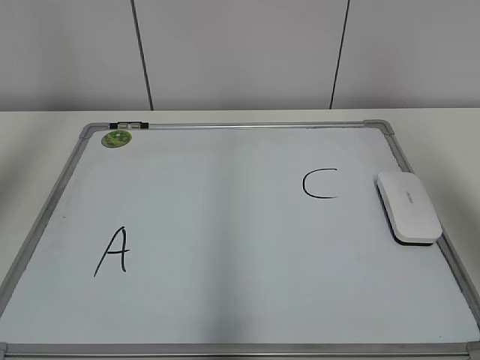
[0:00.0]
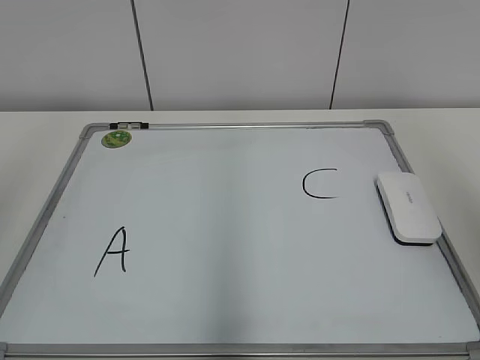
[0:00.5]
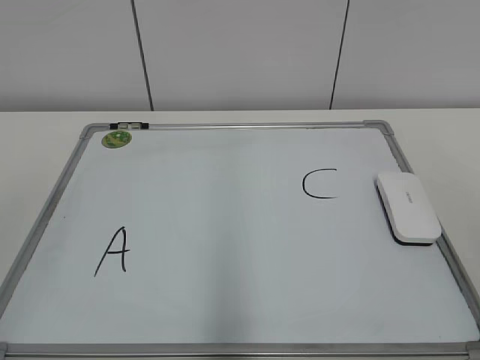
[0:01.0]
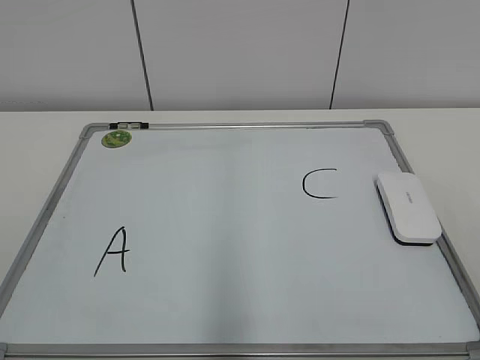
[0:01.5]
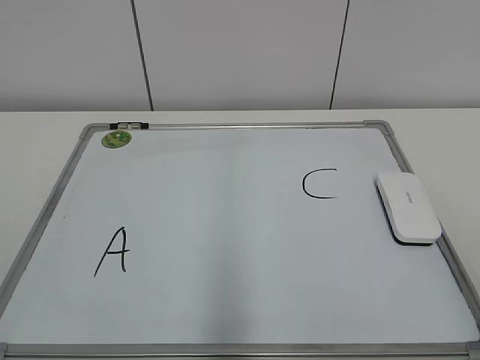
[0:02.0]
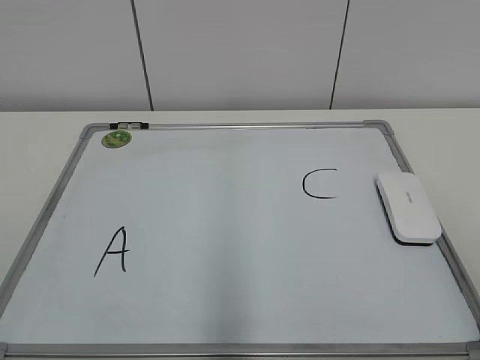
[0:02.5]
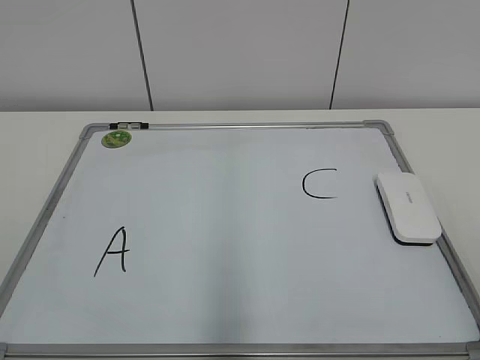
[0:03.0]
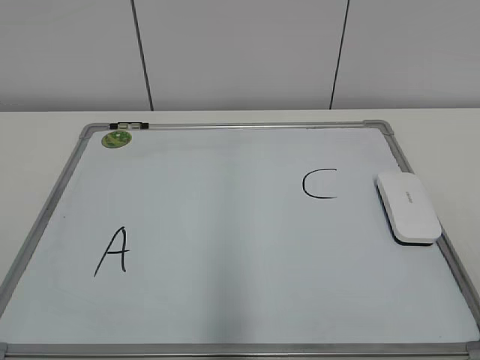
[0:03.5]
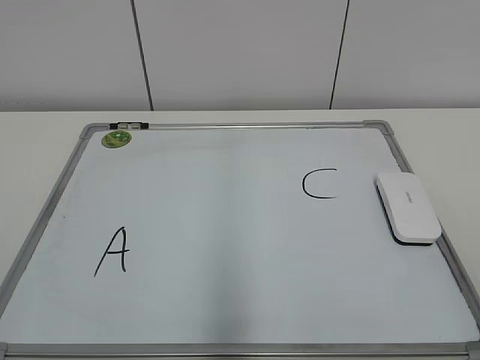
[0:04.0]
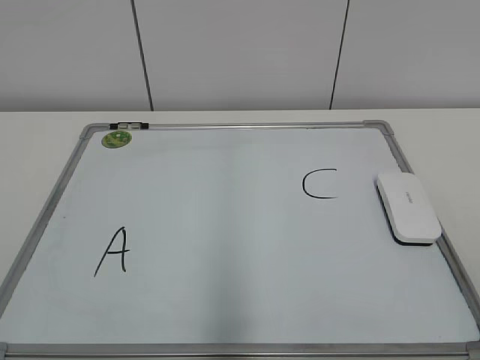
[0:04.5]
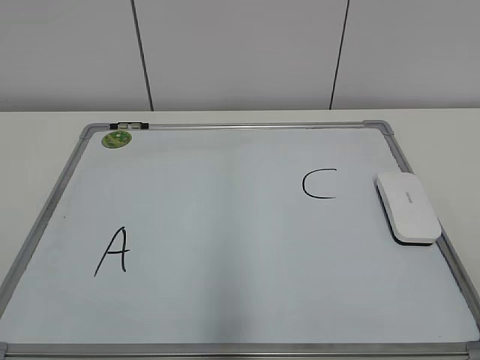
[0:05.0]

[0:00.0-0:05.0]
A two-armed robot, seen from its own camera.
Task of the whole recording: pick up the eraser on the blackboard and erase the letter "B".
0:00.0 to 0:02.5: The right gripper is displaced backward and downward by some 25 cm. Meanwhile the left gripper shifts roughly 30 cm downward and backward.

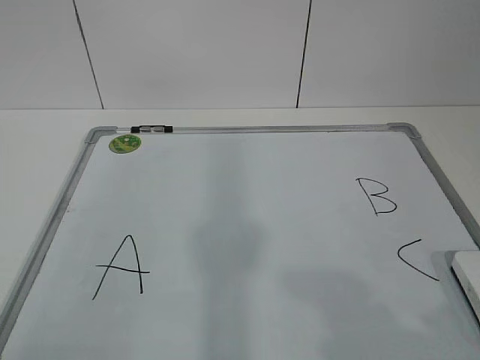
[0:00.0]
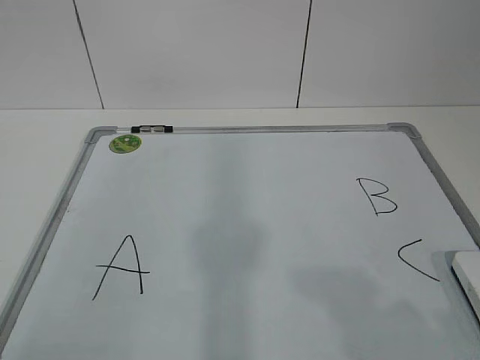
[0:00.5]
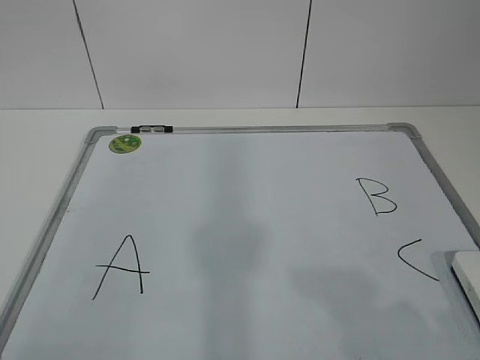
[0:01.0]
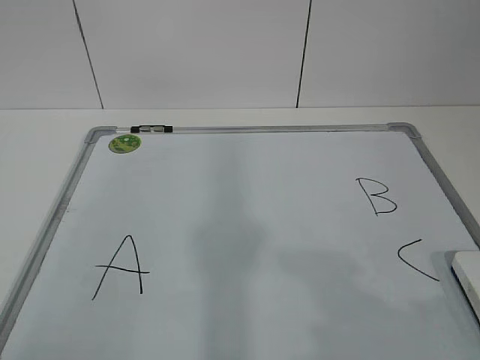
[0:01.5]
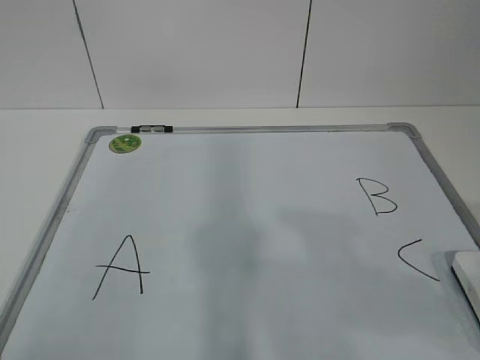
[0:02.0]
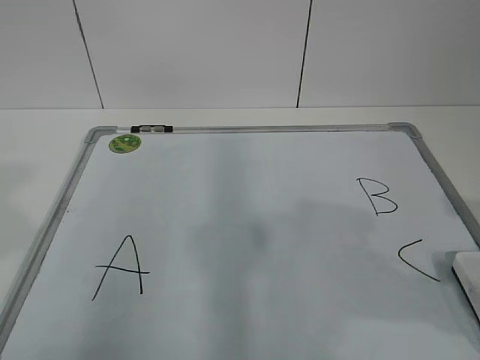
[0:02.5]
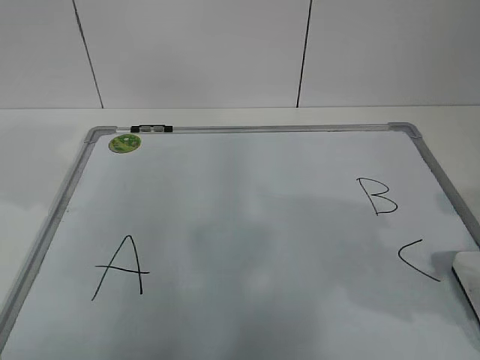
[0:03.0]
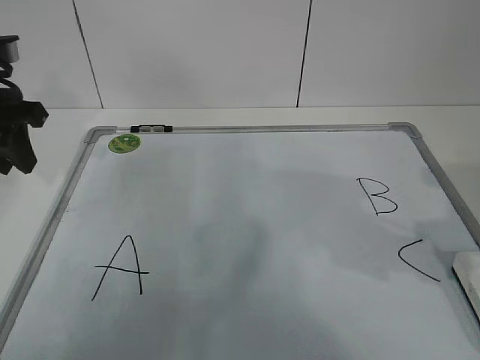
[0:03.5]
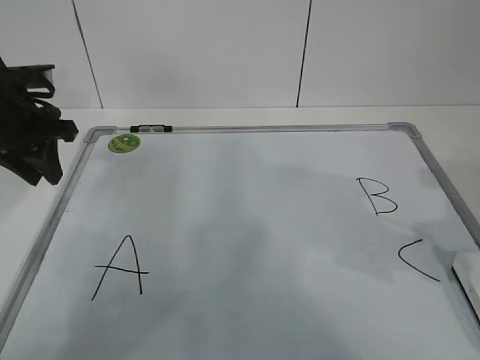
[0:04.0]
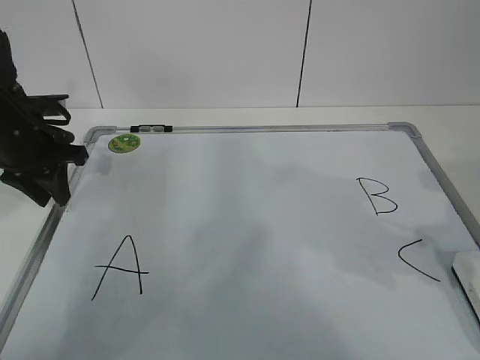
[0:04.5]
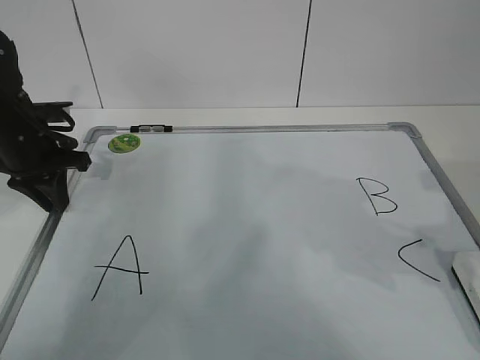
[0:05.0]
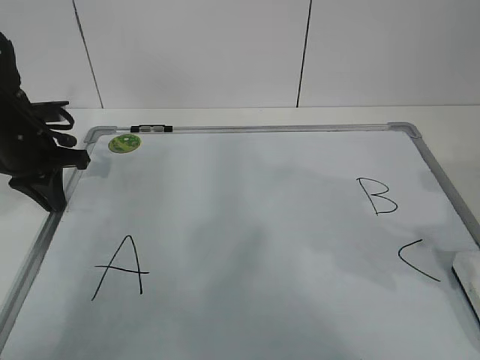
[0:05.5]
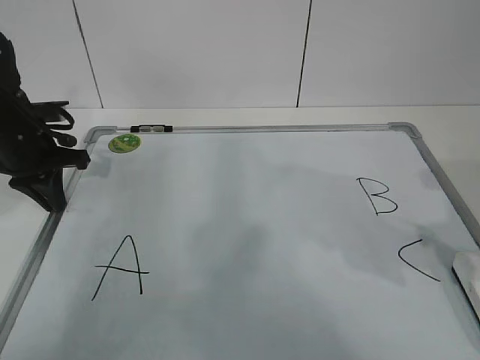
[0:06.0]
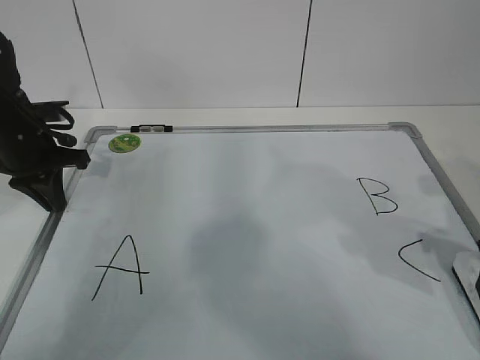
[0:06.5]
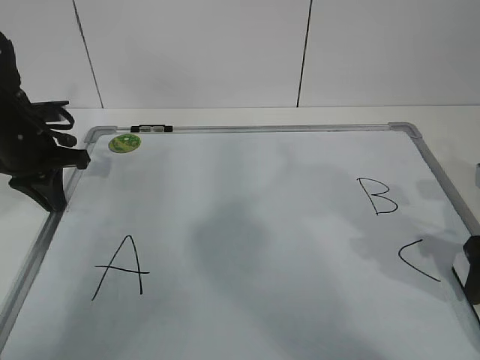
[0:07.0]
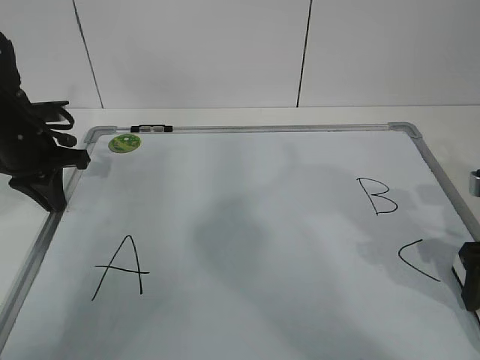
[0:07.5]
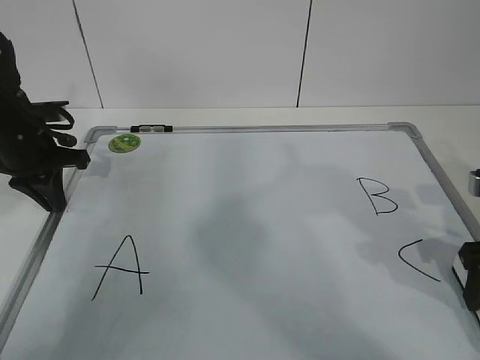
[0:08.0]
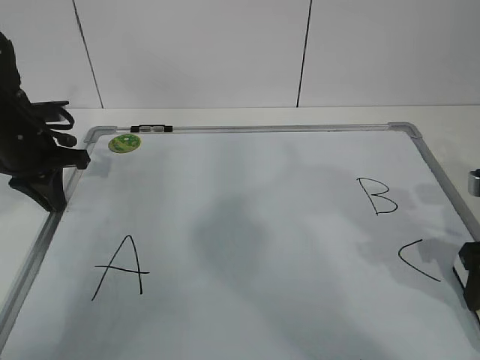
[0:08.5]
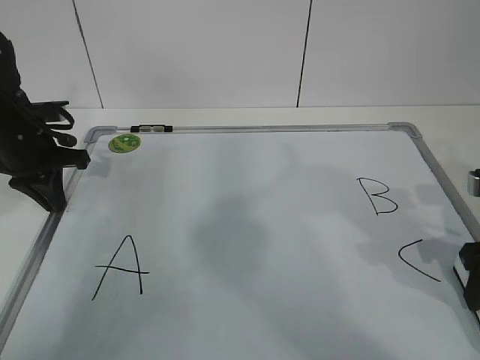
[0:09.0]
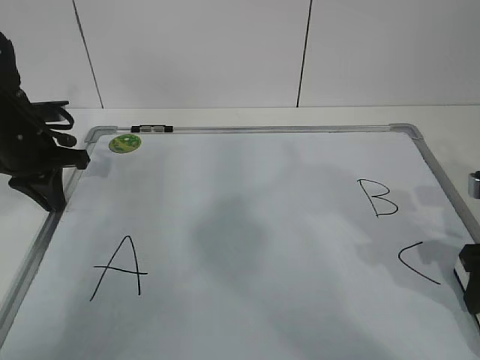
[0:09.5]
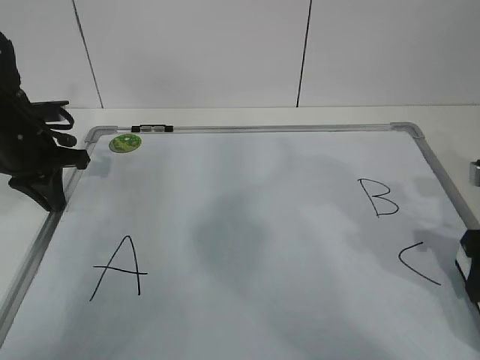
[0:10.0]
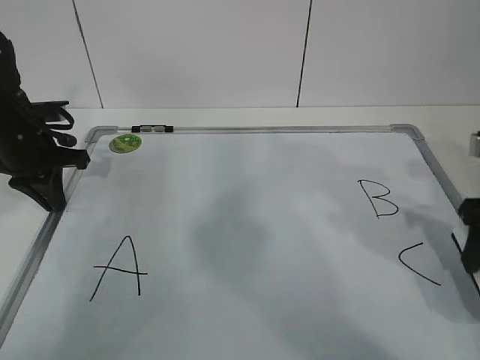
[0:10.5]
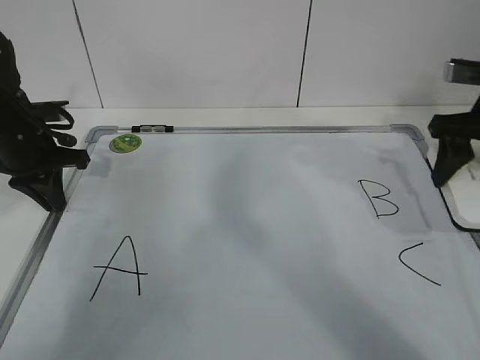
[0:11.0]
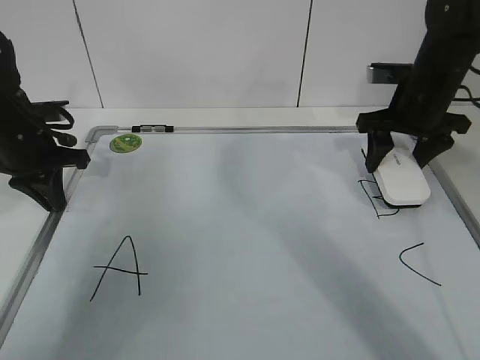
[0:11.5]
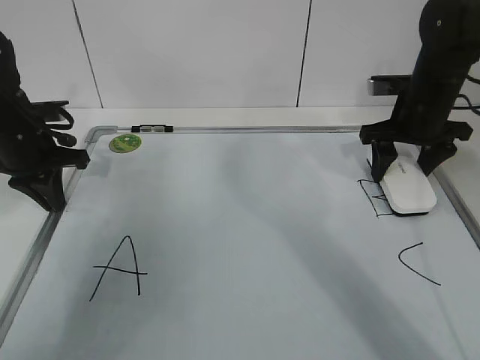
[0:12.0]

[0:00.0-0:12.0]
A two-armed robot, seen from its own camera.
Task of the whole recording: pick up the eraser on the blackboard and erase the letter "B".
Step, 0:00.0 to 0:04.0: Hold the drawing board steady with your left hand.
Step, 0:04.5 to 0:06.5: Grab the eraser with your right hand.
0:02.0 to 0:04.0: The left gripper heads forward, covering approximately 40 cm; the right gripper heads forward, covering some 15 cm.
0:04.0 to 0:06.0: The left gripper goes about 5 cm downward, and closes its fingers.
0:06.0 to 0:08.0: The right gripper shifts some 5 cm downward, and closes.
0:08.0 to 0:10.0: The right gripper closes.
0:10.0 to 0:12.0: The right gripper shifts some 20 cm forward.

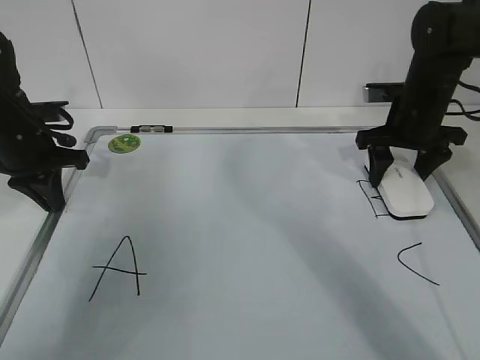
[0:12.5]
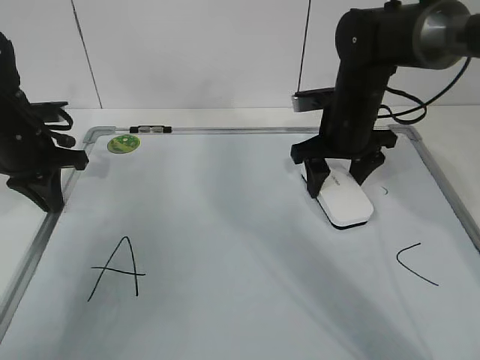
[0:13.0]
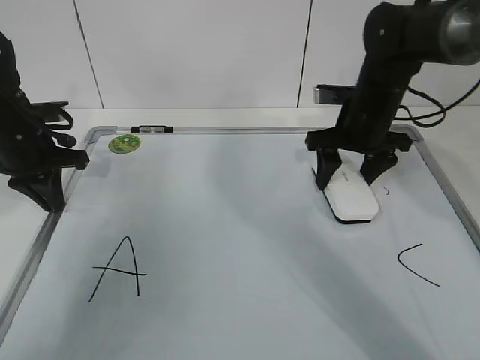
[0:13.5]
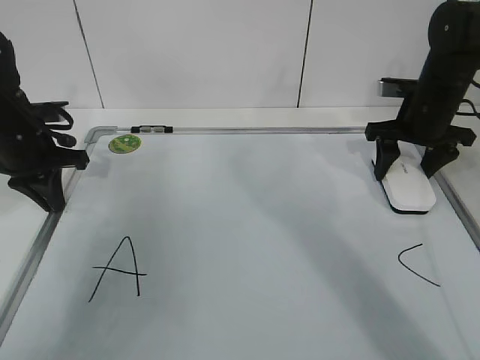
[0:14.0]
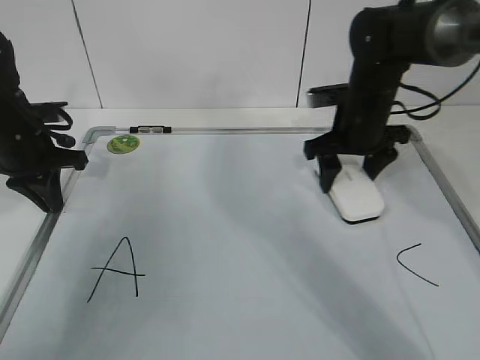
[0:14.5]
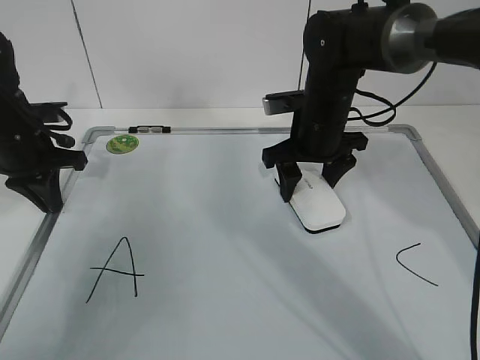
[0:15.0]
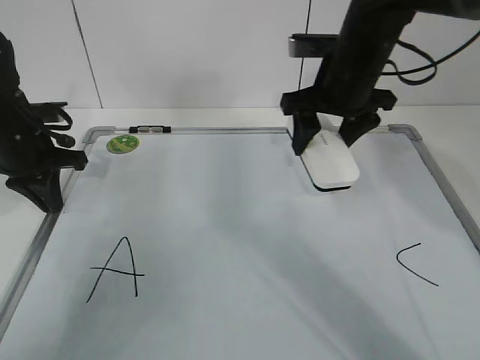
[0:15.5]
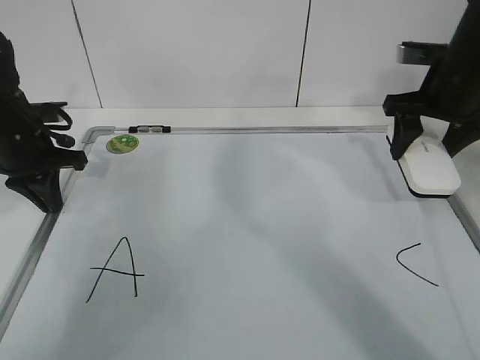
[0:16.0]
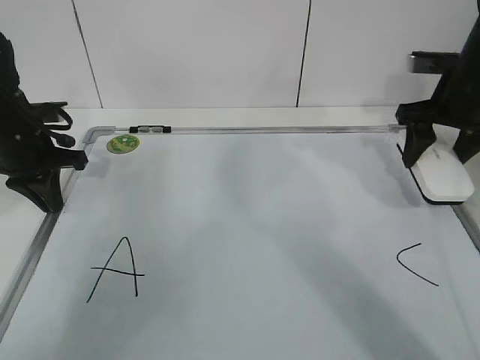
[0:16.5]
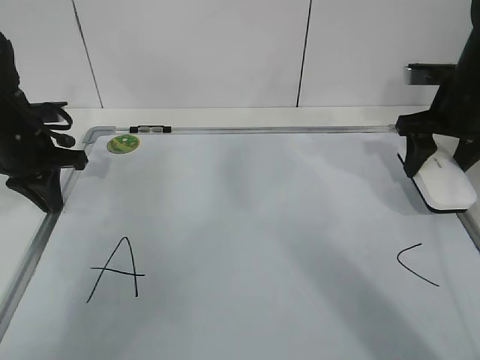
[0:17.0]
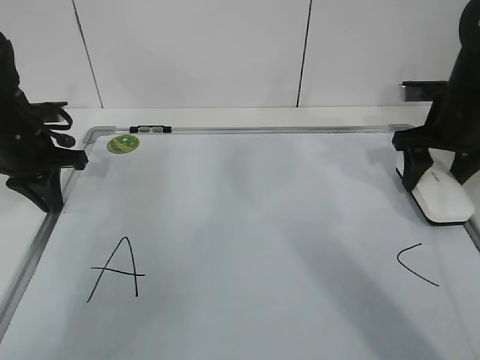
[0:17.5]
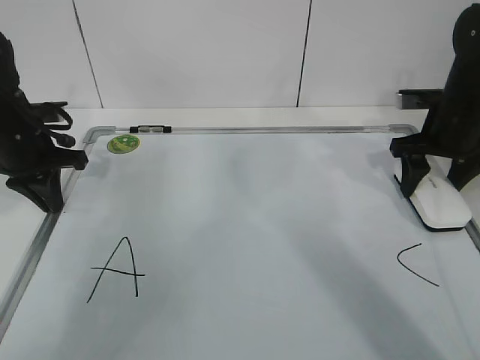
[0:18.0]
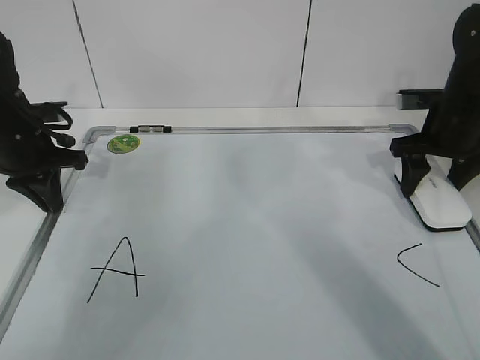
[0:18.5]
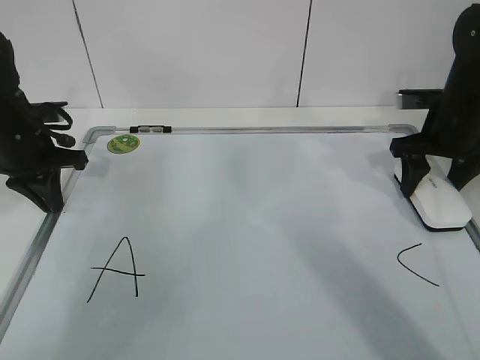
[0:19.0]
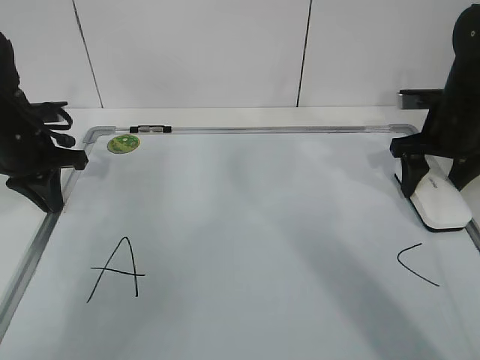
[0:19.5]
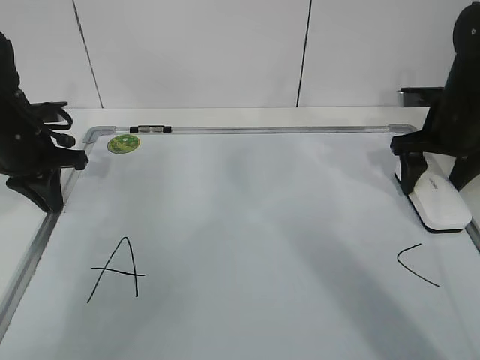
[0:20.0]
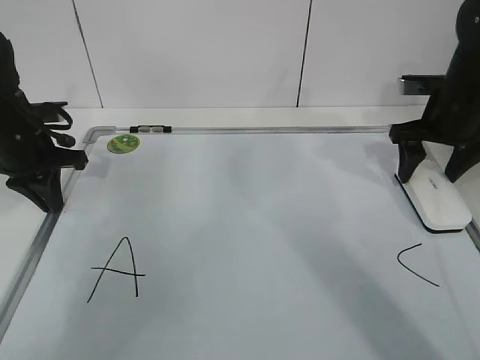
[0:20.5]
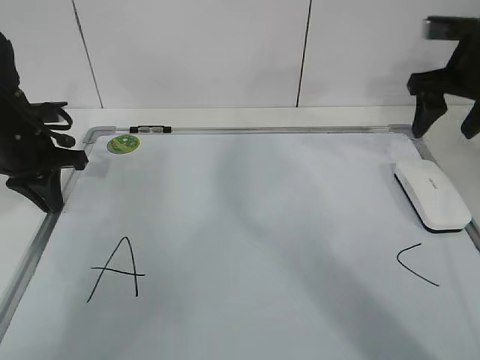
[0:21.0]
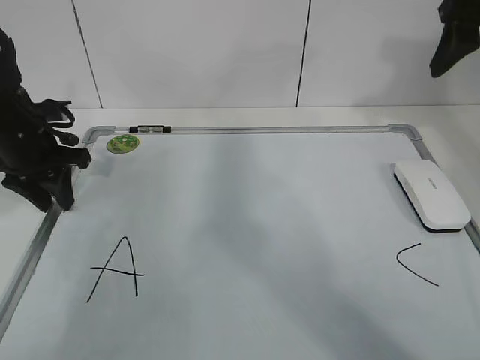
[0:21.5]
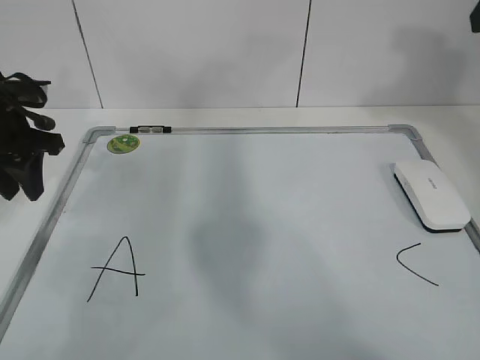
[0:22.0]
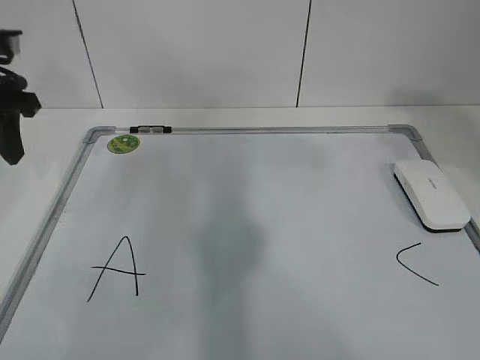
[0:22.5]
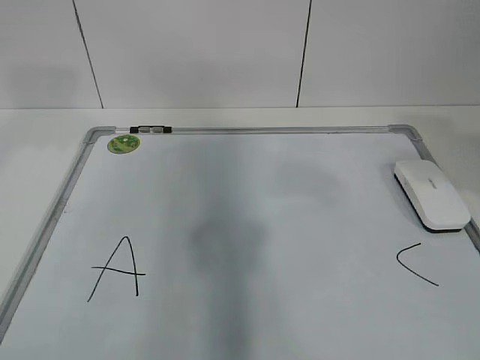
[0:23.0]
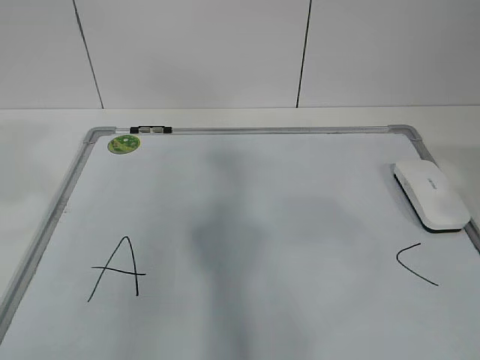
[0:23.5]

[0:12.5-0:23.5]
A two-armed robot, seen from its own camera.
Task of the whole recording: pick up the eraser on the blackboard and erase the letter "B".
Step, 0:12.5 to 0:16.5: Put down the eraser with your right hand.
0:12.5 to 0:14.5: The right gripper swings left and right, roughly 10 cm each way, with 2 reversals.
0:14.5 to 0:16.0: The right gripper travels to the right and upward by about 10 cm.
0:16.0 to 0:18.0: The right gripper travels downward by roughly 5 cm.
0:18.0 to 0:20.0: The right gripper opens its fingers.
0:20.0 to 0:21.5: The left gripper opens up. The right gripper goes some 15 cm upward.
0:21.5 to 0:23.5: The left gripper travels backward and upward by some 35 cm; the right gripper travels backward by approximately 30 cm.
